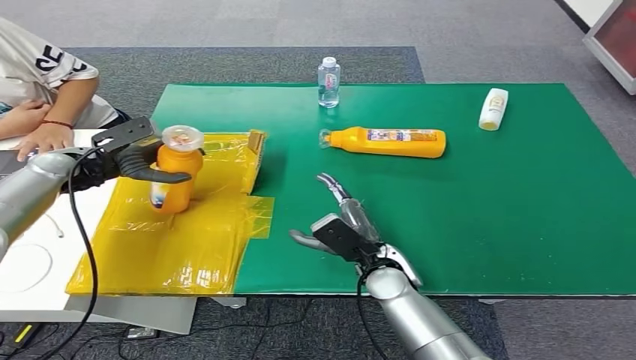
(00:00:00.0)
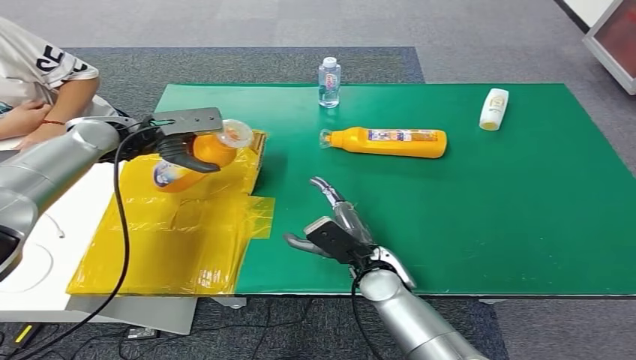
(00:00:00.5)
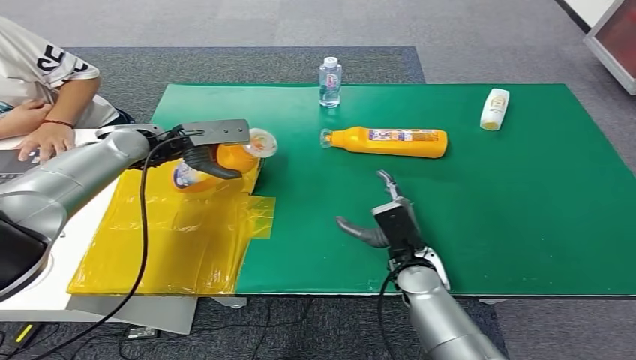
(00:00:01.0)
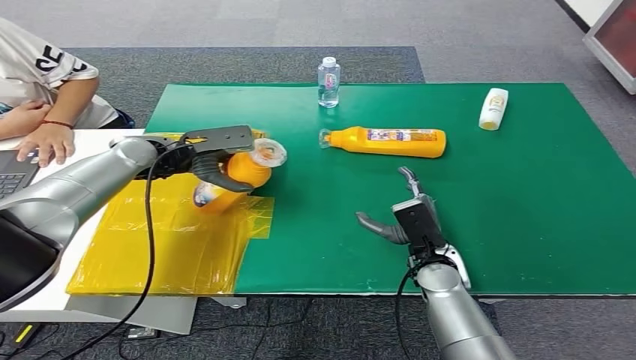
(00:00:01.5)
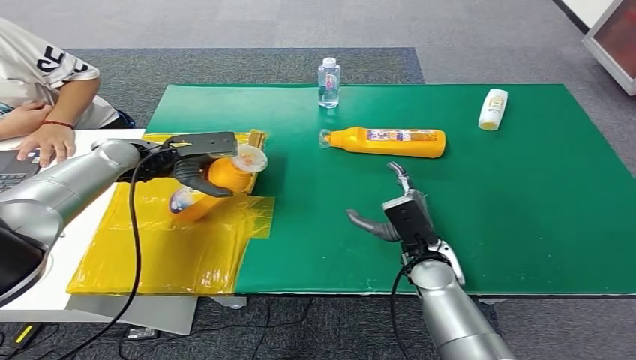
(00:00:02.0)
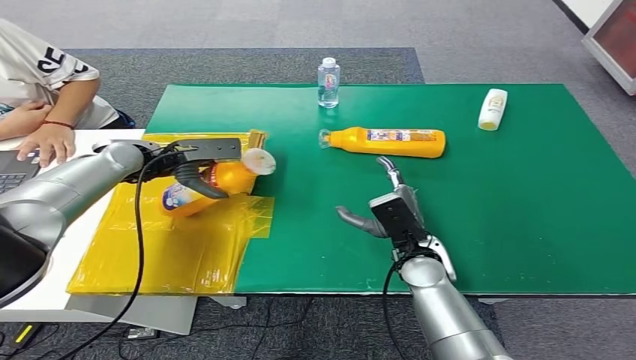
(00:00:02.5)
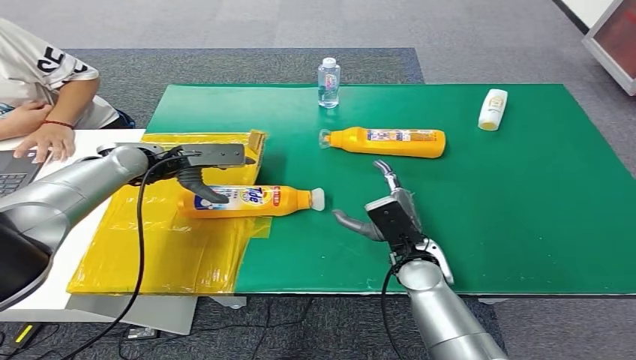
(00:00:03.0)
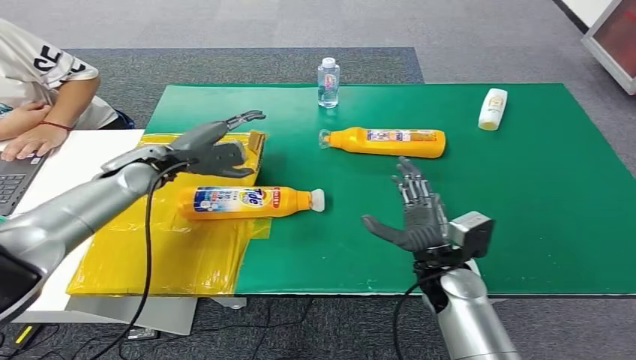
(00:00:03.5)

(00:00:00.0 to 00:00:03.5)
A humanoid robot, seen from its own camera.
Step, 00:00:00.0 - 00:00:03.5: Turn the bottle to the front side.
